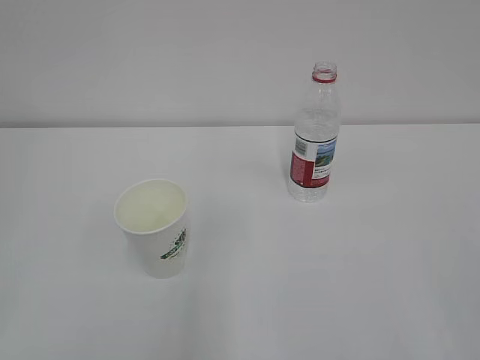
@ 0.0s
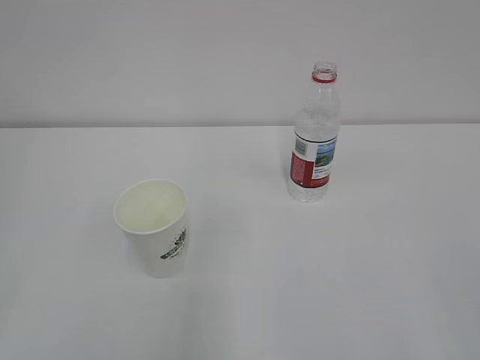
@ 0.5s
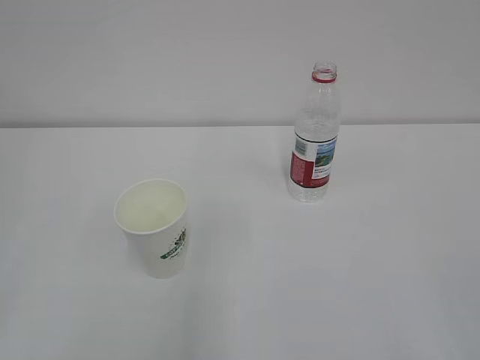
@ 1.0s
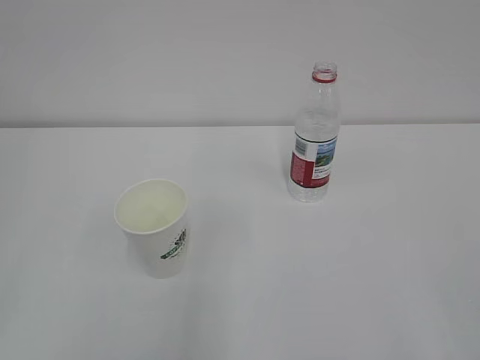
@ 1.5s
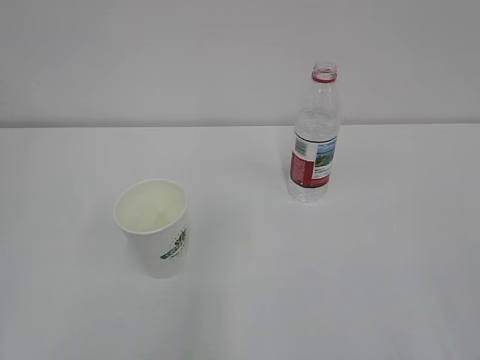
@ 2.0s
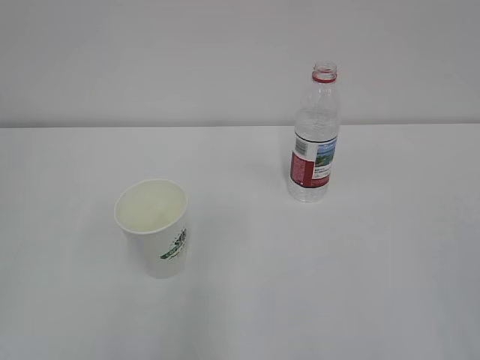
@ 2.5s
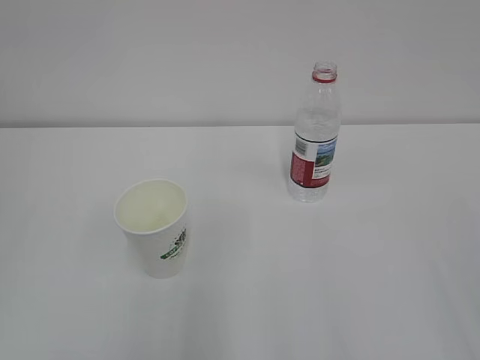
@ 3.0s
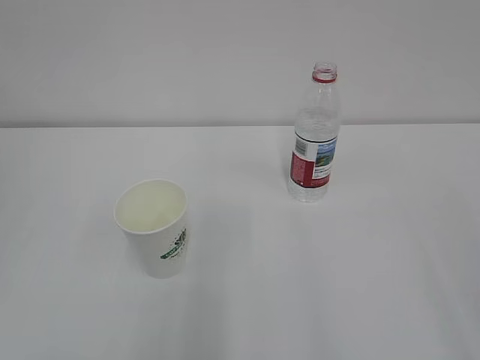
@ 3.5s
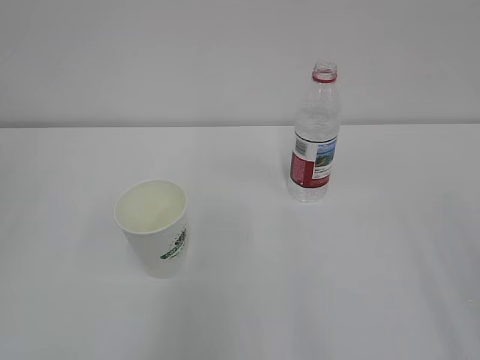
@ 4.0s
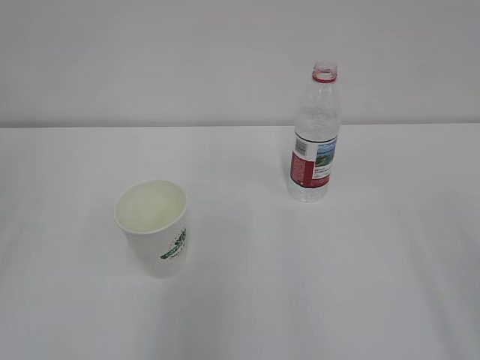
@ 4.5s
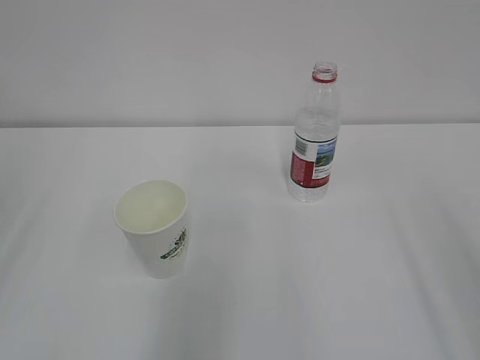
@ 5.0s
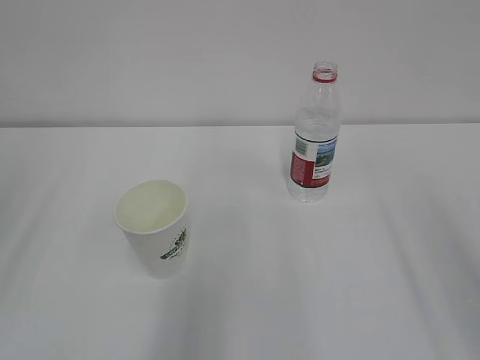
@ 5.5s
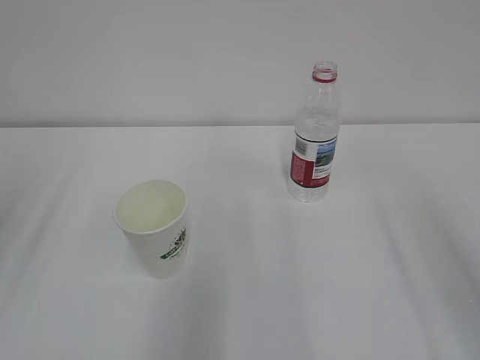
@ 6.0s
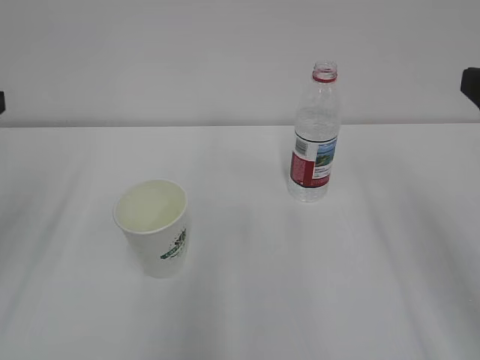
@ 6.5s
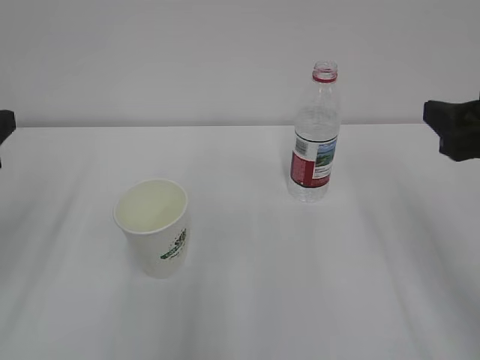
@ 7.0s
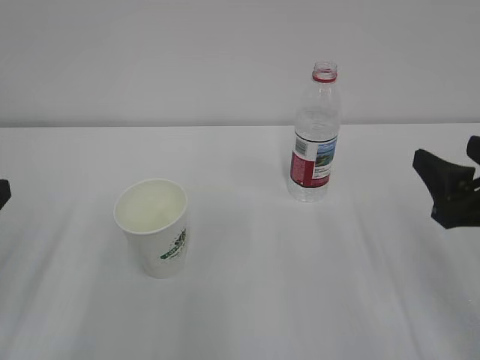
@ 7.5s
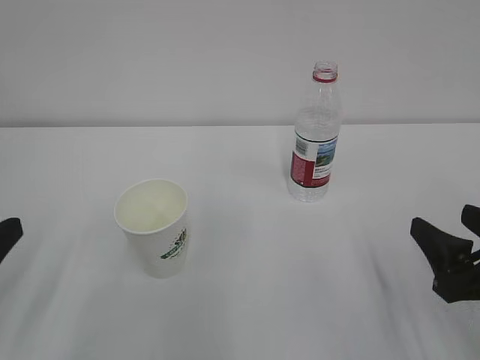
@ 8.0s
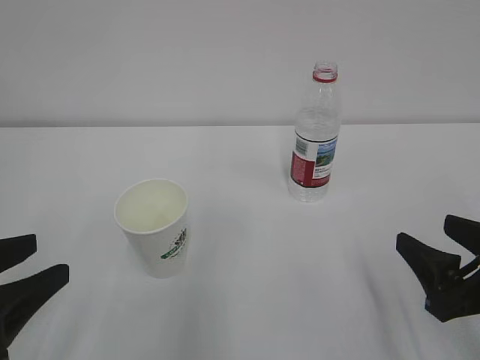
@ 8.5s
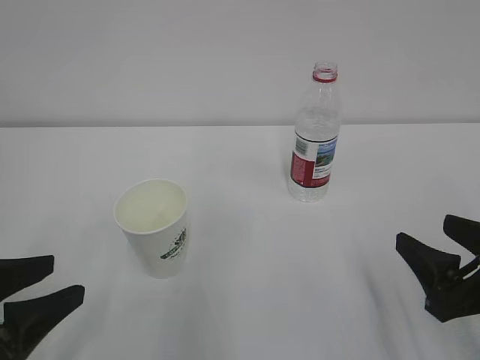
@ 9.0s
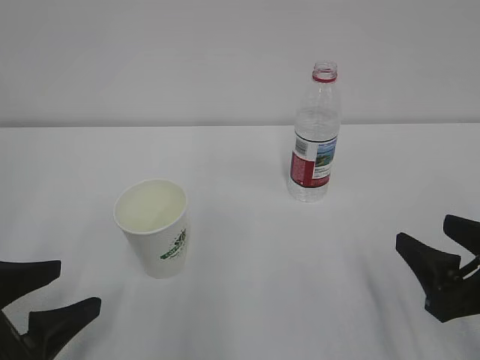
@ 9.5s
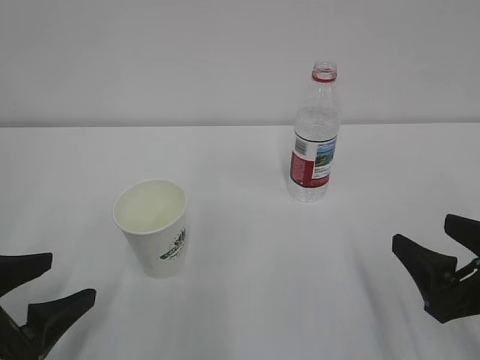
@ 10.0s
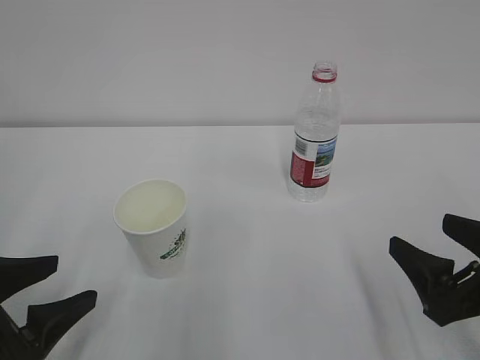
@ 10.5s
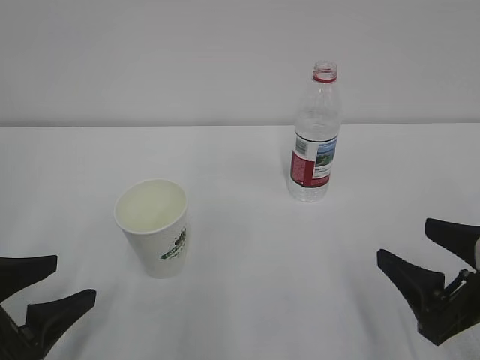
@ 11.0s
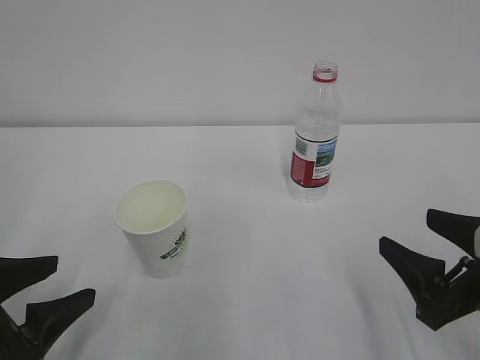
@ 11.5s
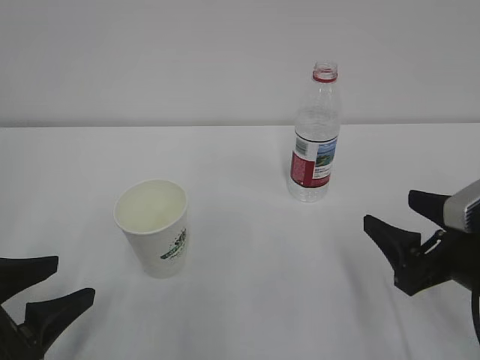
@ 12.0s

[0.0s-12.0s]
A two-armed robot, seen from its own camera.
6.0s to 8.0s: The right gripper travels downward by approximately 20 cm.
8.0s to 10.0s: The left gripper goes about 5 cm downward, and opens up. Meanwhile the right gripper opens up.
10.0s to 12.0s: The left gripper closes.

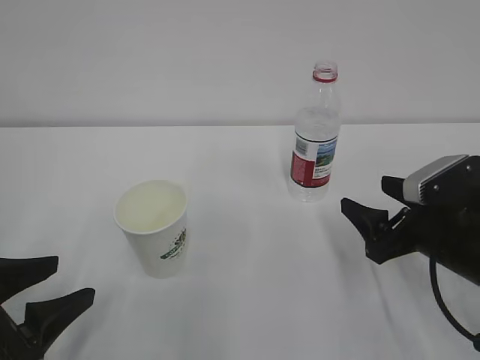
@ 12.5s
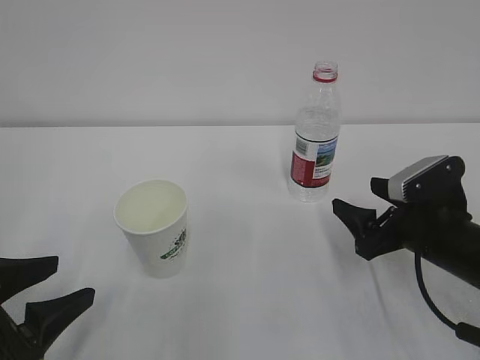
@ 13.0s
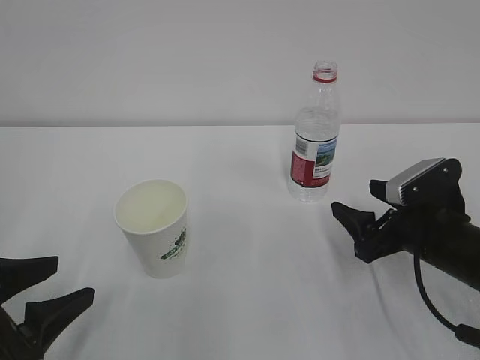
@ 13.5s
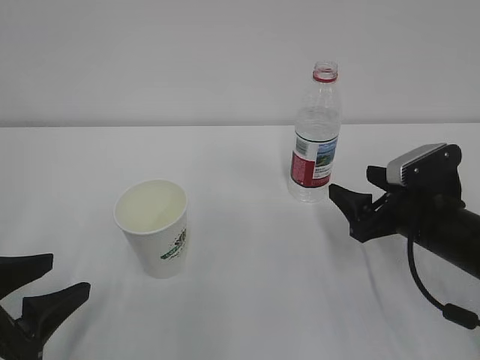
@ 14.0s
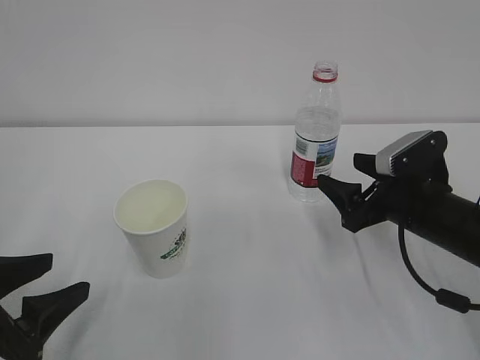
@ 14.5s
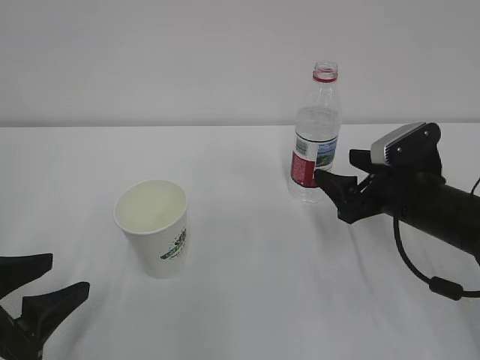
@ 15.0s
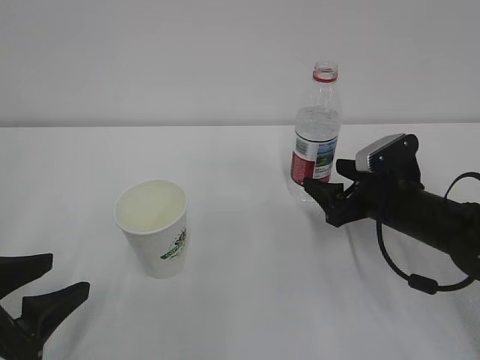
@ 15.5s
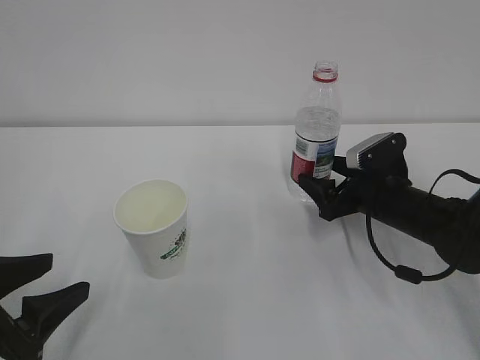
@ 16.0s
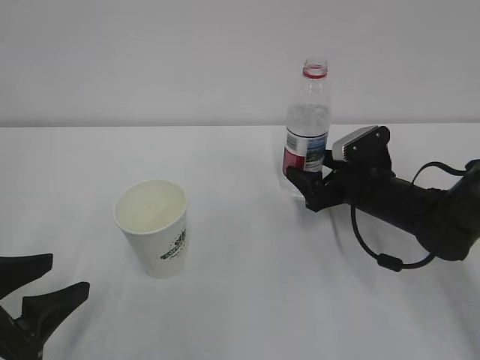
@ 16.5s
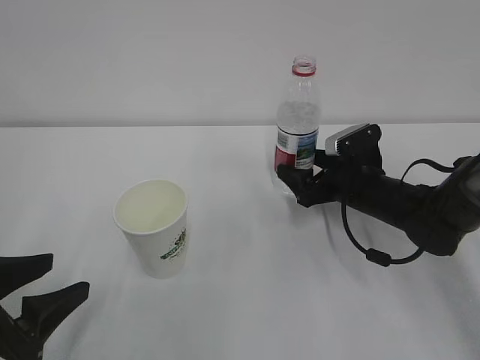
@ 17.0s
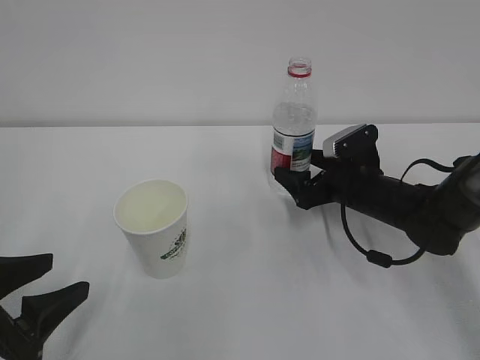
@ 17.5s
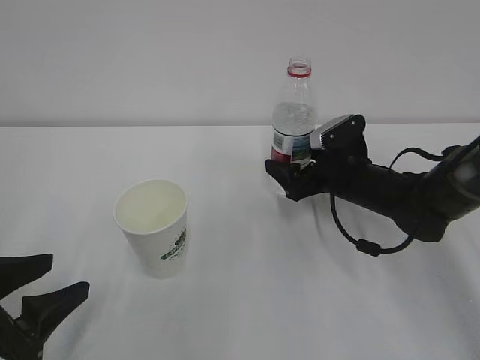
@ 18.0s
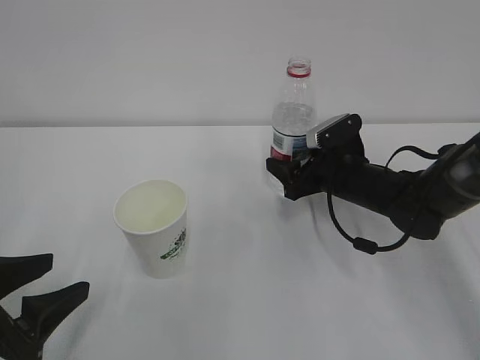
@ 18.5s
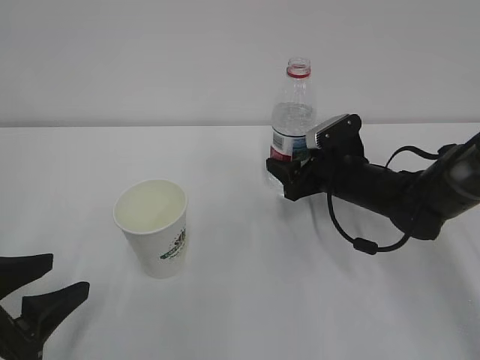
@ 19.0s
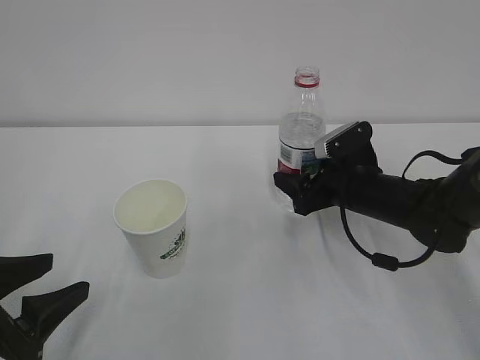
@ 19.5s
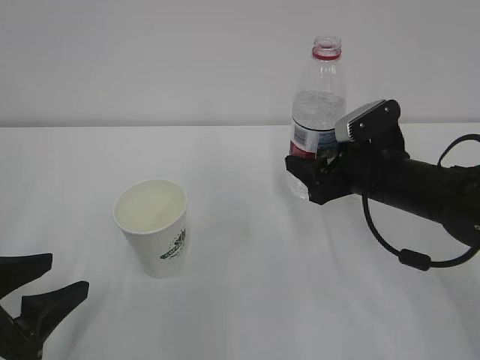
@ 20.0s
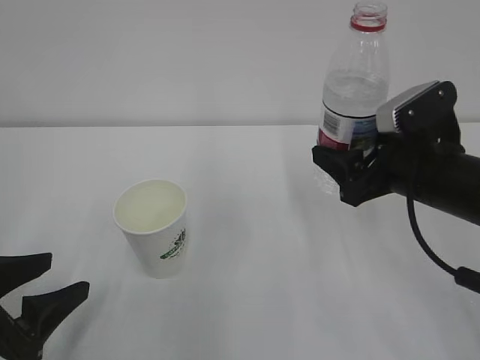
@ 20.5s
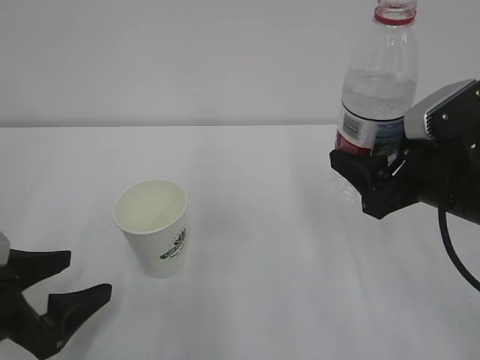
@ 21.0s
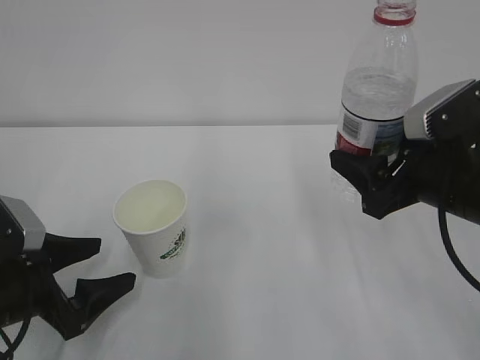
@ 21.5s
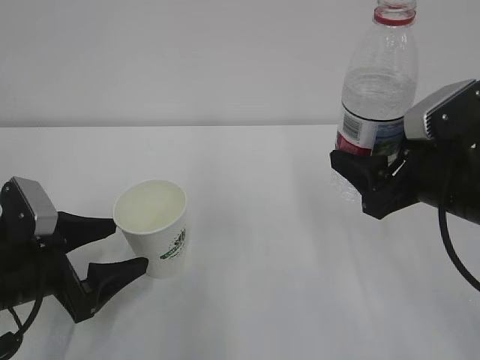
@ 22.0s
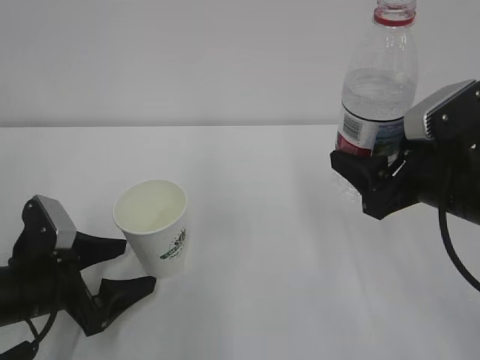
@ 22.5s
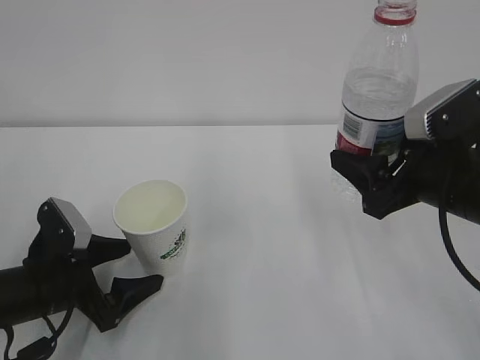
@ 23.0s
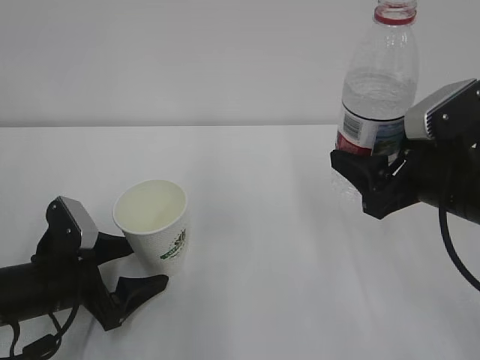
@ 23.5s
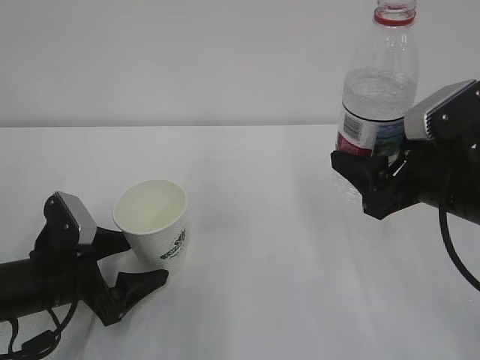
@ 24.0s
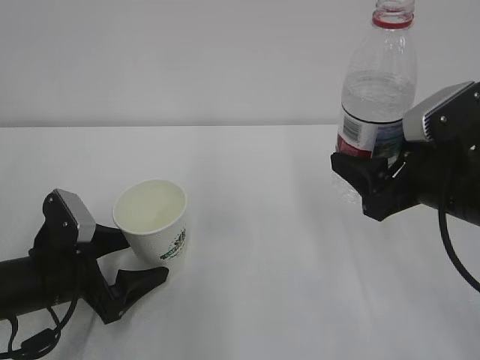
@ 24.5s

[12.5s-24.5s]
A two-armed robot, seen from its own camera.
12.5s to 14.5s: The right gripper shifts by about 5 cm.
14.5s to 16.5s: The right gripper moves forward, roughly 5 cm.
16.5s to 18.5s: The right gripper closes its fingers.
18.5s to 20.5s: The right gripper heads backward and upward, covering approximately 15 cm.
20.5s to 22.5s: The left gripper shifts about 5 cm forward, and opens.
22.5s to 24.5s: The grippers move only a little.

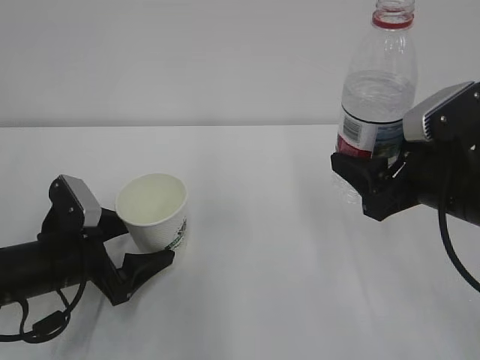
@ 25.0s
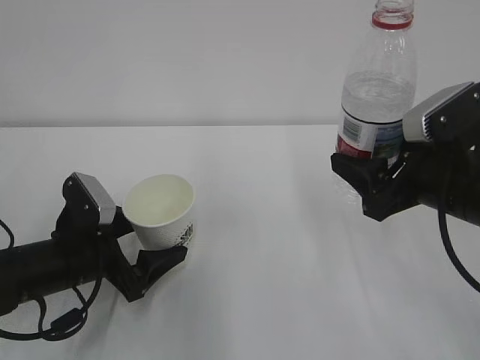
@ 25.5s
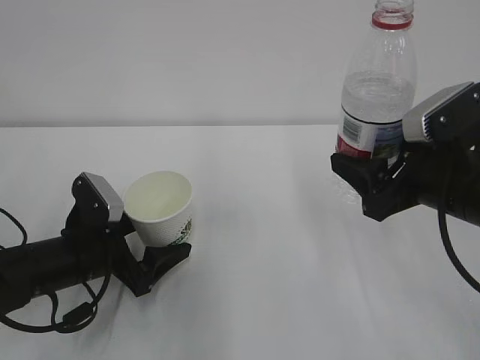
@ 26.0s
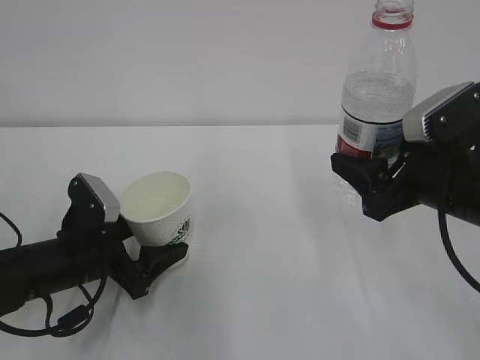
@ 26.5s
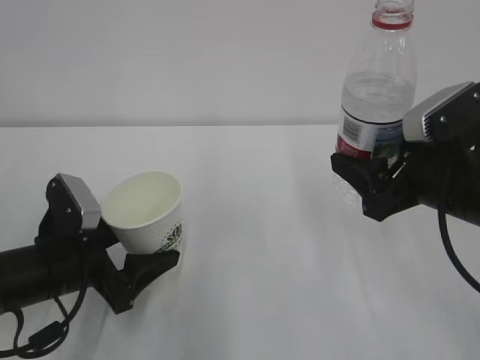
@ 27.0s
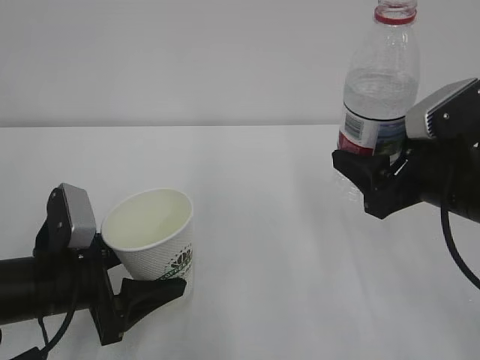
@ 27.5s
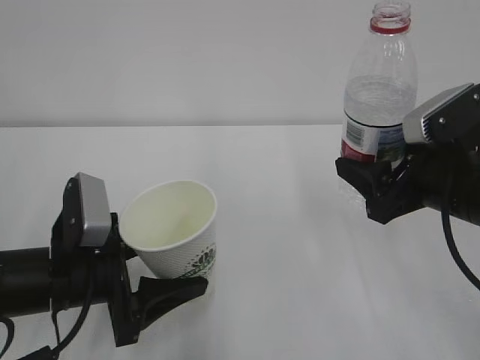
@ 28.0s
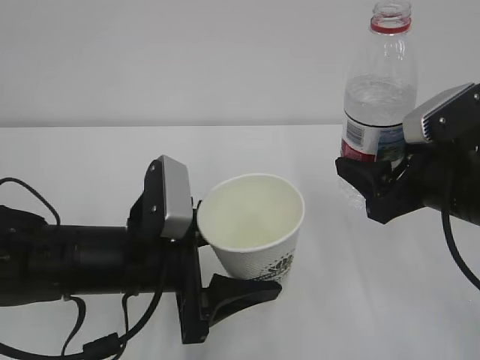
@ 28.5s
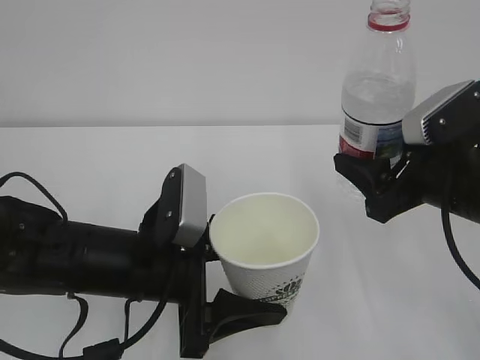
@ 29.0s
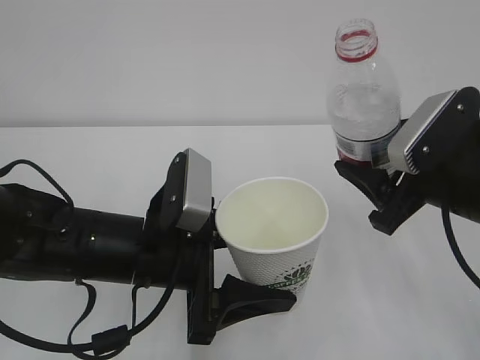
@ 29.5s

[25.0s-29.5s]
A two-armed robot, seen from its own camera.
25.0s to 27.0s: The left gripper closes up.
27.0s to 29.5s: The left gripper goes approximately 15 cm to the right and upward.
